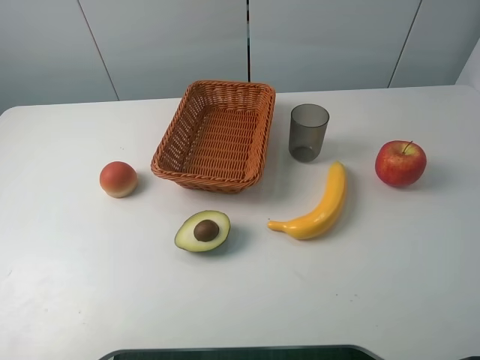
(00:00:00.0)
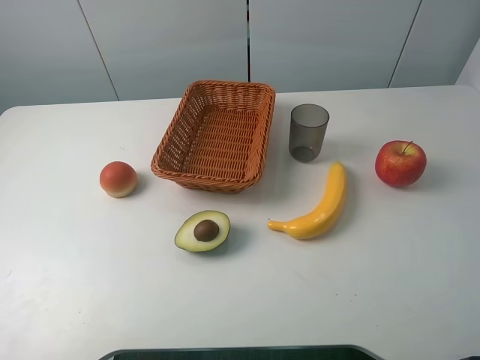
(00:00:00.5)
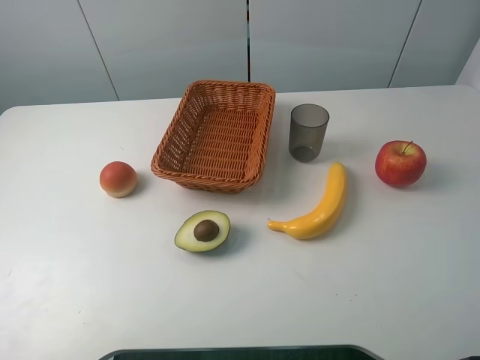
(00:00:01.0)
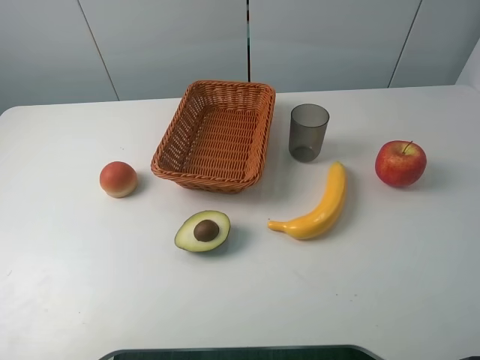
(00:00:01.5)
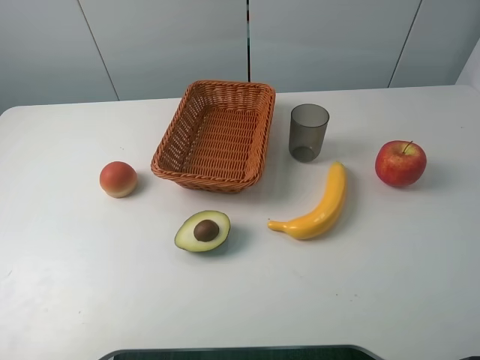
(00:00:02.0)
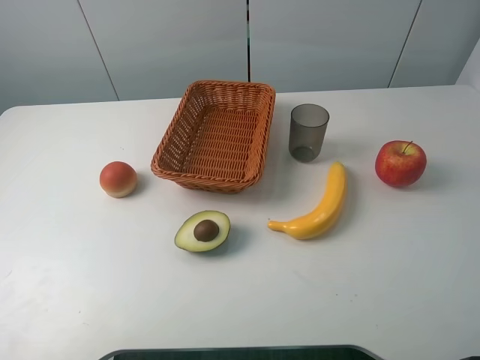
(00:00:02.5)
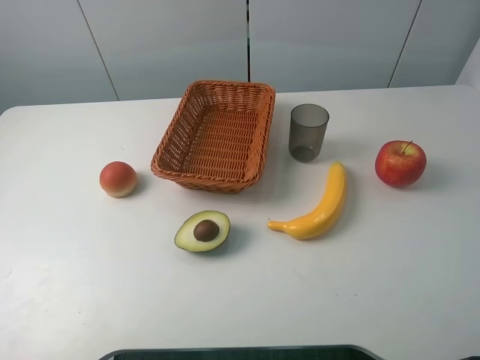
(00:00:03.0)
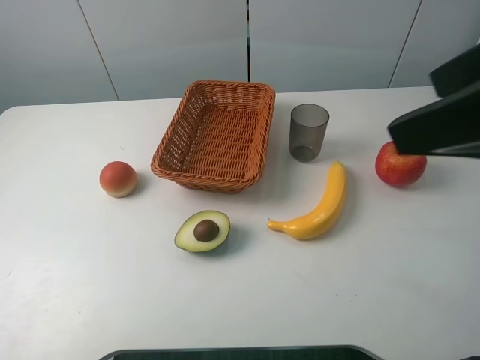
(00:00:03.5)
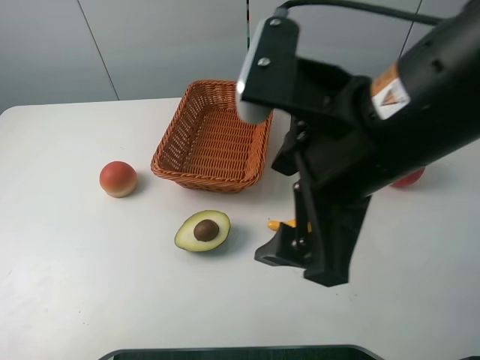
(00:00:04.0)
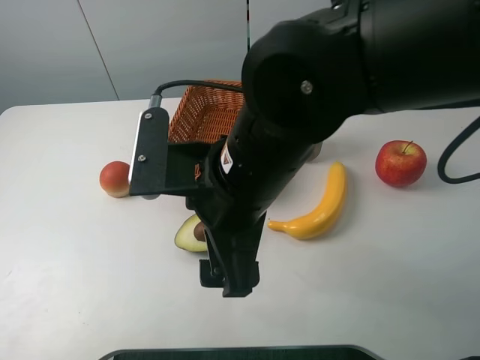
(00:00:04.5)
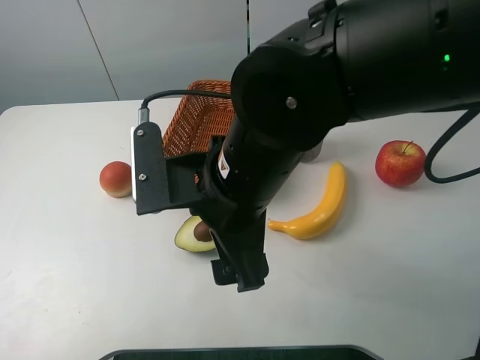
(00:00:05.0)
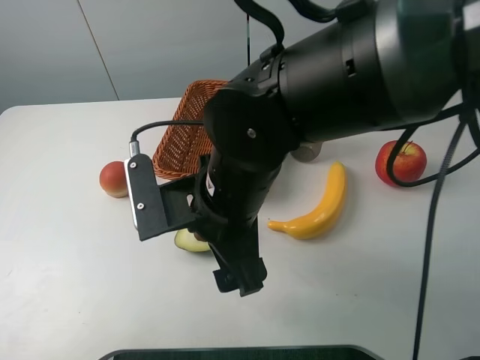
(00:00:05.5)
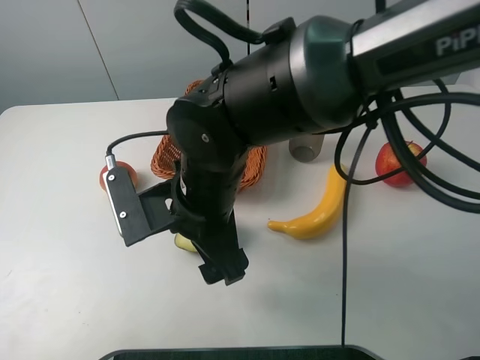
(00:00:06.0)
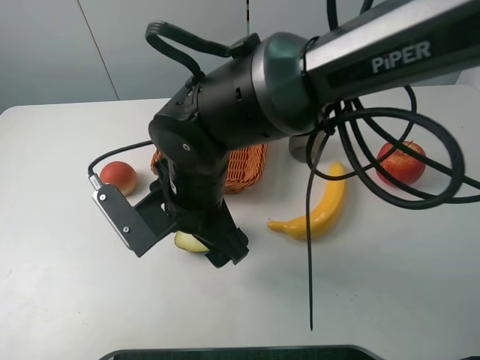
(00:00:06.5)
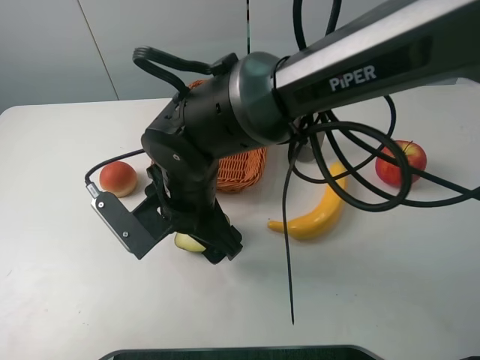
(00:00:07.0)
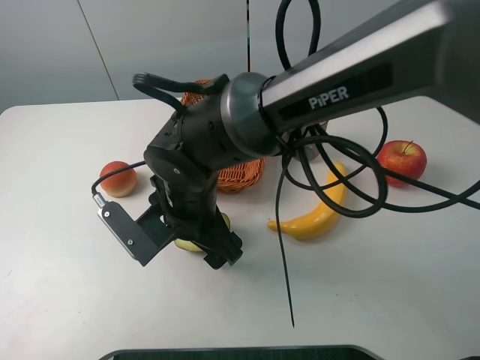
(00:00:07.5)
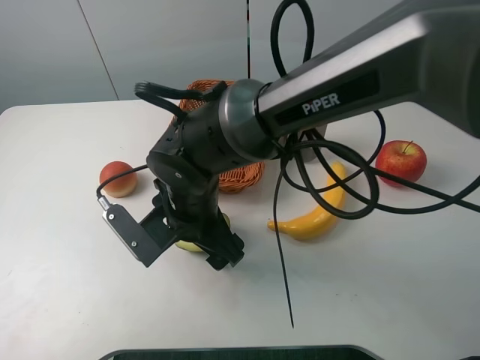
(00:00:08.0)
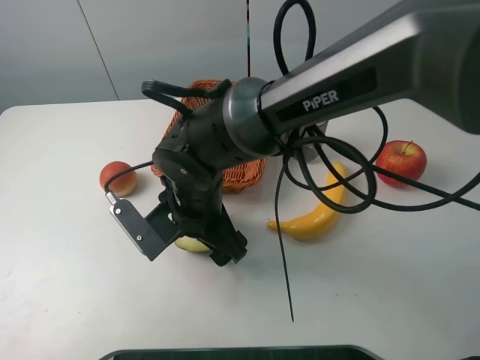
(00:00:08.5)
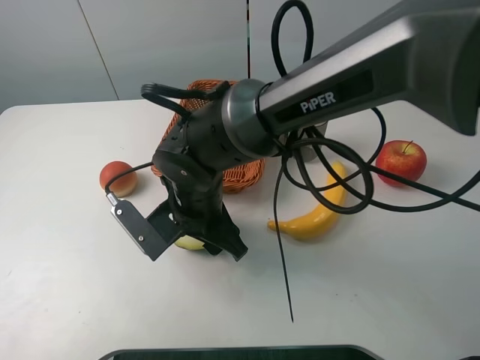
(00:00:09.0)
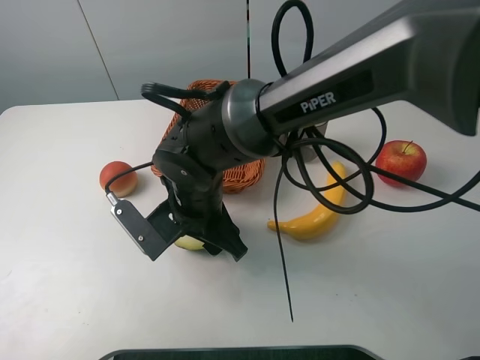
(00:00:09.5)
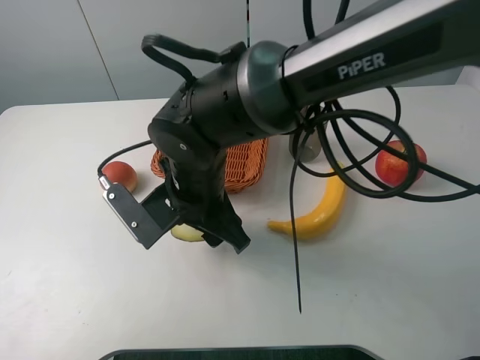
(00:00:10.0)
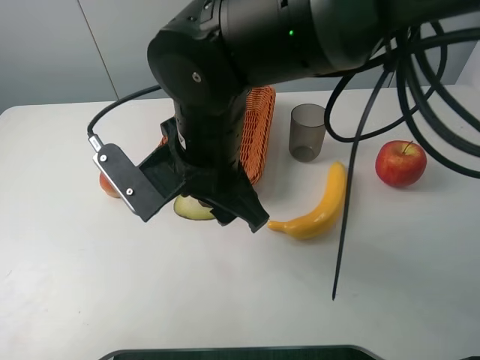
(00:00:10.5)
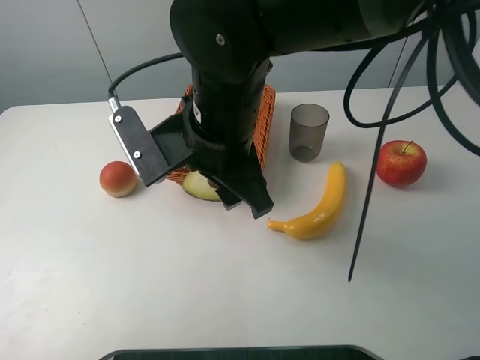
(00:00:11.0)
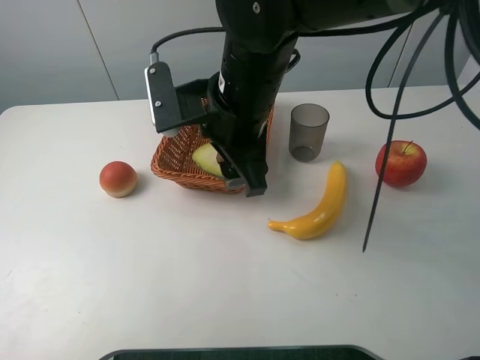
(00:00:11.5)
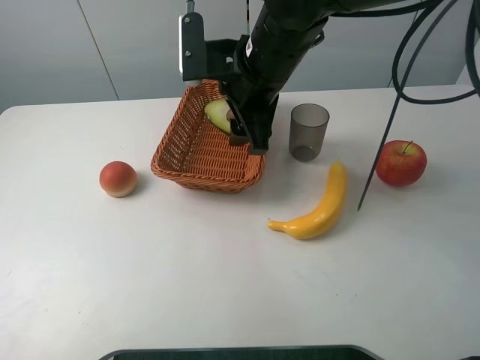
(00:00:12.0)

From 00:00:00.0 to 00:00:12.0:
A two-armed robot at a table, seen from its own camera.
Task of the whole recording: randomly pick up an item from the table and put it in the basket.
Step, from 00:00:00.0 to 00:00:09.5: Grasp the avocado with the right gripper.
From 00:00:00.0 to 00:00:02.0: Both grippers stay about where they are.
From 00:00:02.0 to 00:00:04.0: The right gripper shifts some 25 cm to the left and forward.
From 00:00:04.0 to 00:00:06.0: The right gripper heads to the left and downward, covering approximately 15 cm.
From 00:00:06.0 to 00:00:08.0: The right gripper shifts by approximately 5 cm.
From 00:00:08.0 to 00:00:10.0: The right gripper closes its fingers.
From 00:00:10.0 to 00:00:12.0: The right gripper heads forward, upward and to the right, covering approximately 15 cm.

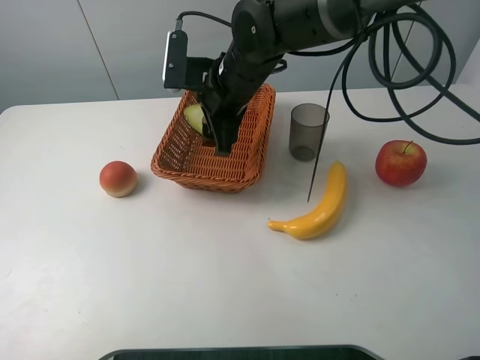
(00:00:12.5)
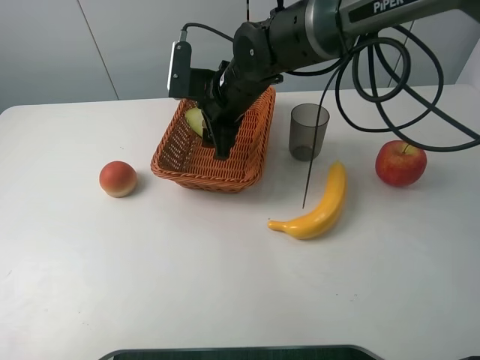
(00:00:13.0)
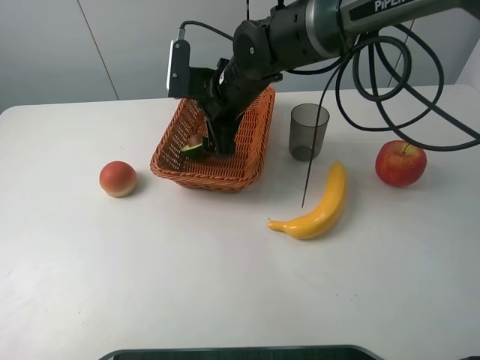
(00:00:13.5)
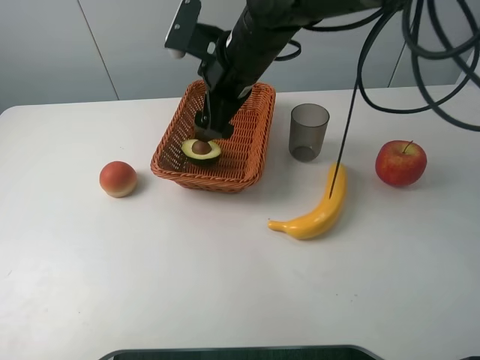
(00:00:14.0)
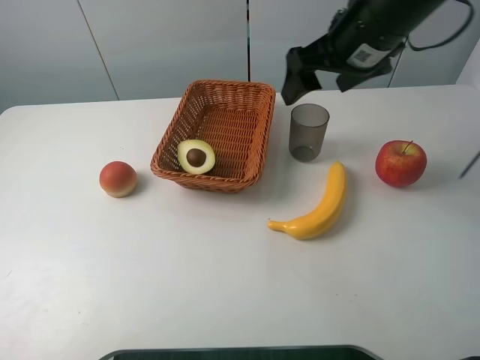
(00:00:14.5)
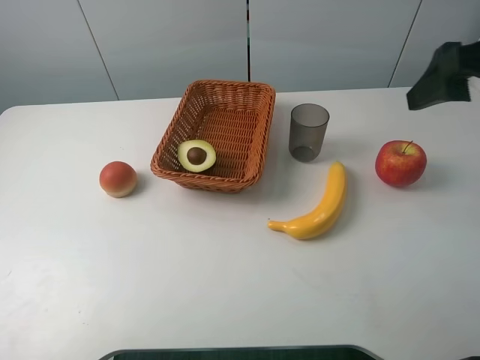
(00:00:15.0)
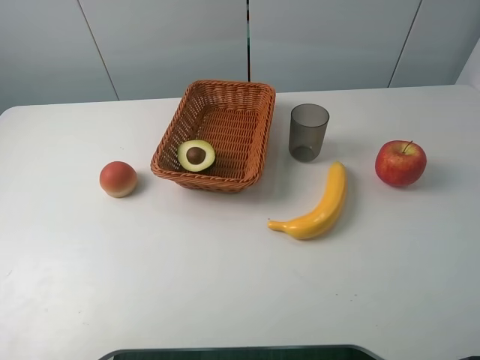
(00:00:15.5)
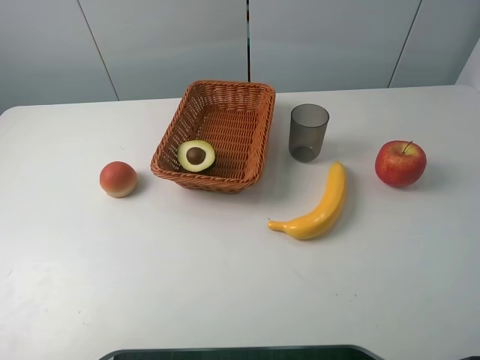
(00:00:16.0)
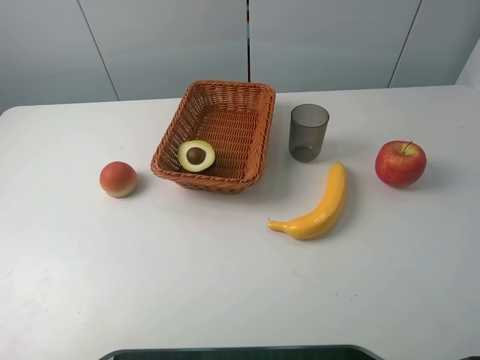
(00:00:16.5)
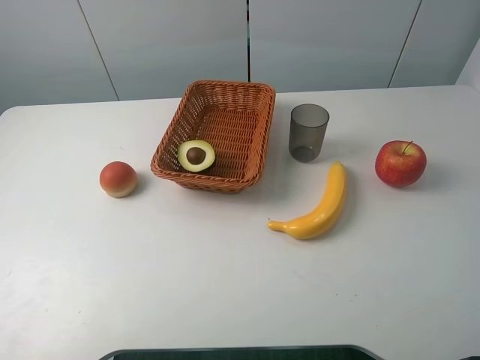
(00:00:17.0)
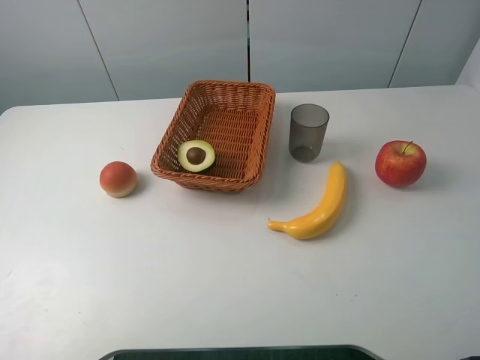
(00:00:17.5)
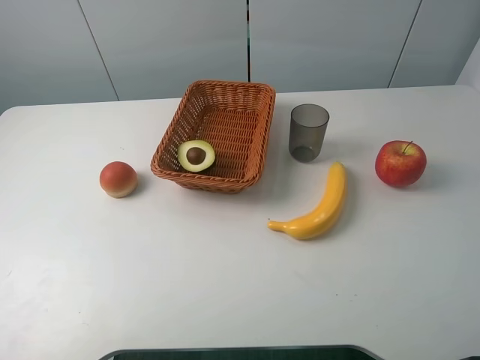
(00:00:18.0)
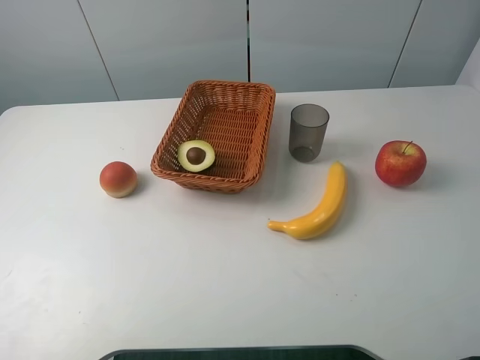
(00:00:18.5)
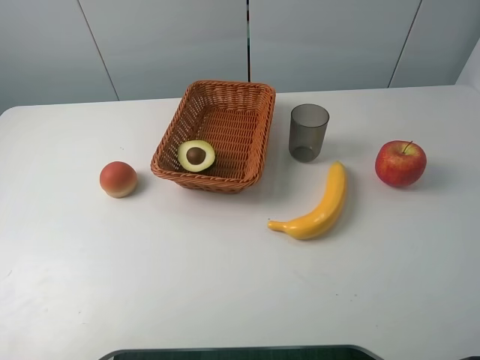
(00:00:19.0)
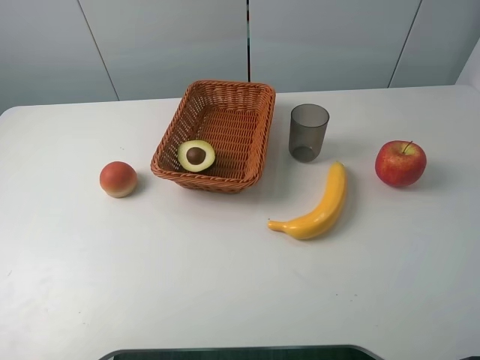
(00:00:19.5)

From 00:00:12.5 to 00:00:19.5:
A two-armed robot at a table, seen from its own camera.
Task of the whole recording: randomly pick up an item from the table and put it in the basket.
From 00:00:12.5 to 00:00:14.5: The right gripper heads to the right and upward, covering about 20 cm, and opens.
From 00:00:14.5 to 00:00:16.0: The right gripper moves backward and to the right, some 35 cm.
From 00:00:17.5 to 00:00:19.5: Both grippers stay put.

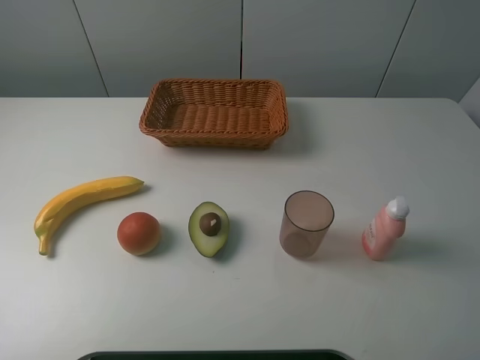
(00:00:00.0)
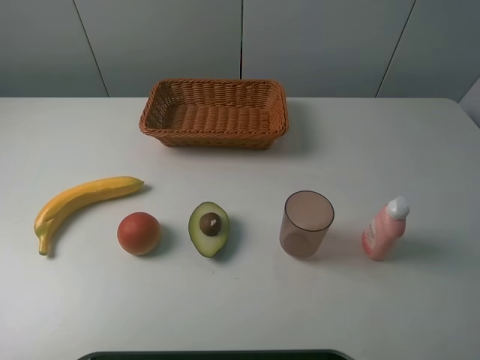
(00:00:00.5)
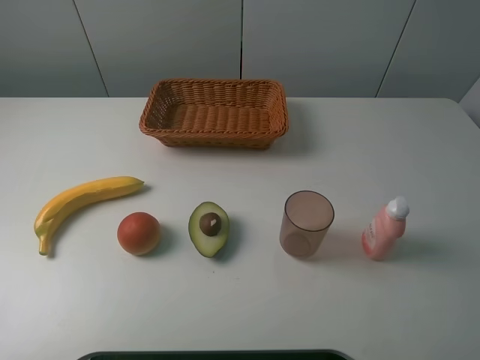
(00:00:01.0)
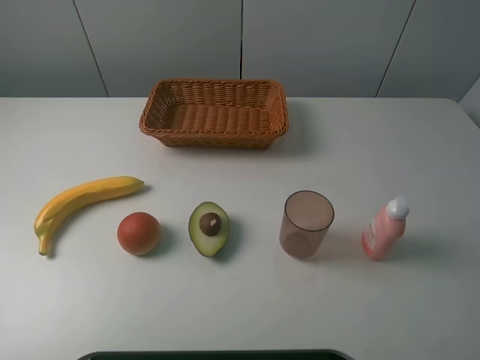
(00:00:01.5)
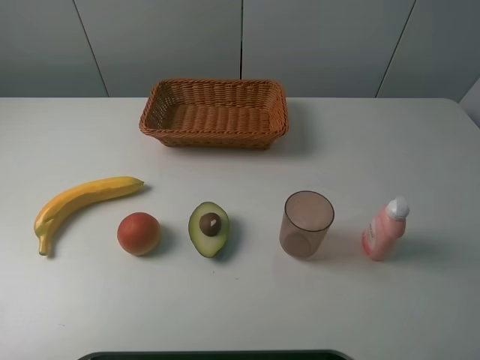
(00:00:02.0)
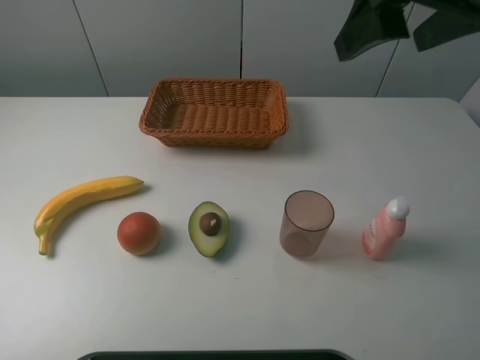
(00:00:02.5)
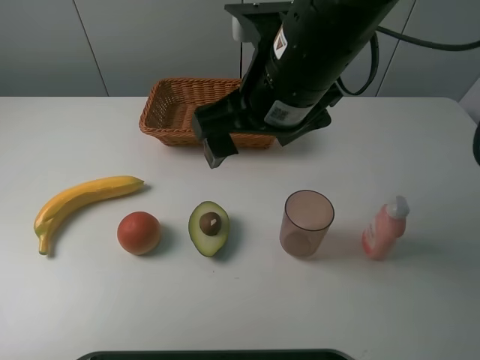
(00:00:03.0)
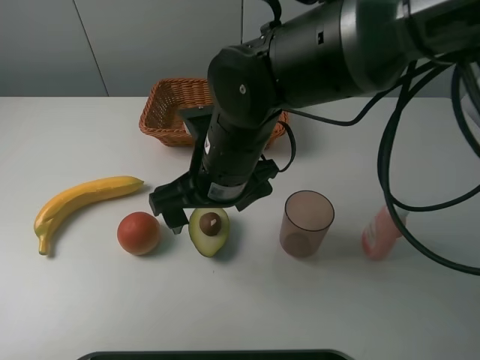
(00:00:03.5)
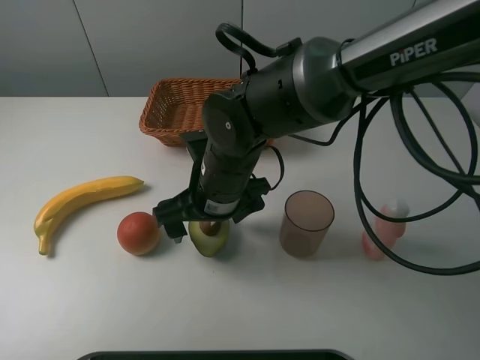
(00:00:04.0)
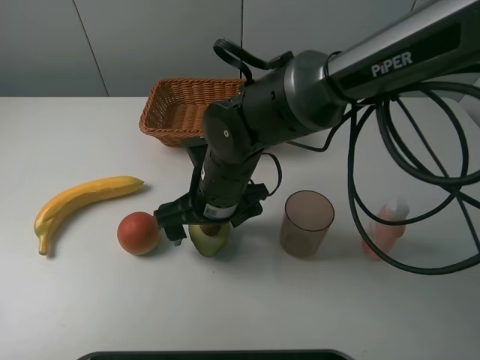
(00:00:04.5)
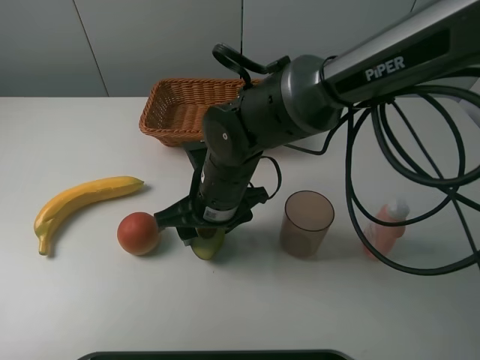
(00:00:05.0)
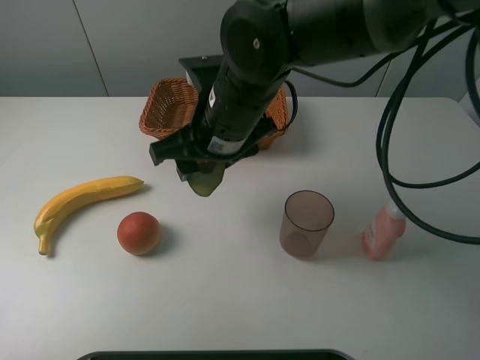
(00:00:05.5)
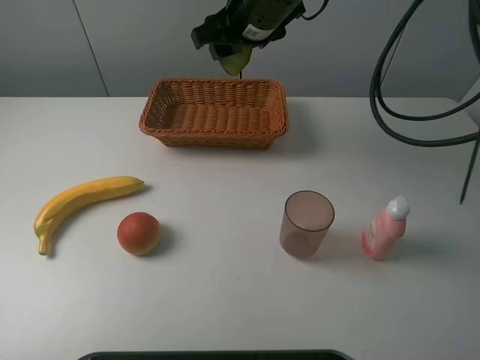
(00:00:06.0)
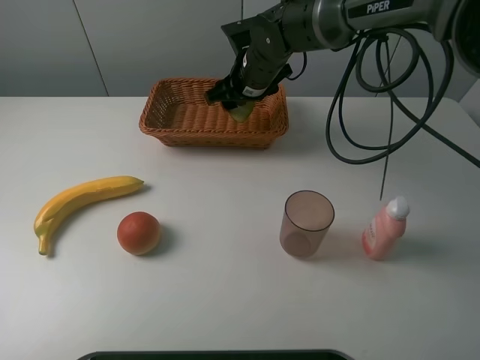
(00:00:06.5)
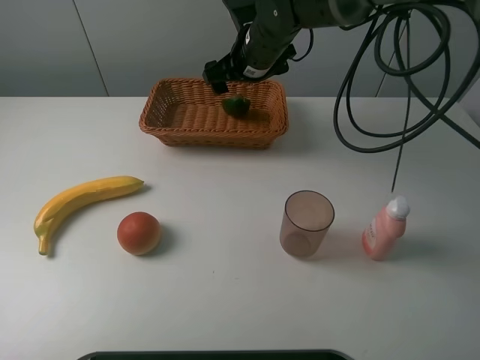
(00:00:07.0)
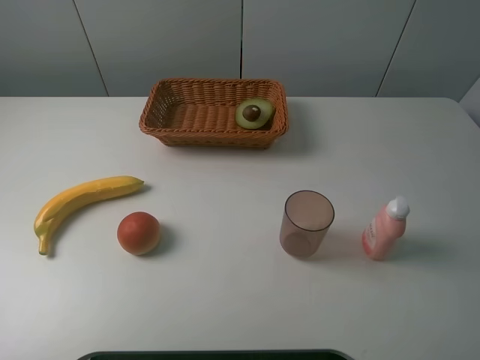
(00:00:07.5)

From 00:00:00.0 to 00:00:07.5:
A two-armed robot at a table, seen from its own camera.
Task of the whole recording: randomly pick up an item from the table and put it in the basket.
Step, from 00:00:00.0 to 00:00:04.5: Grasp the avocado with the right gripper.
Step, from 00:00:05.0 to 00:00:07.0: Place the avocado into the basket with the right gripper.
From 00:00:02.0 to 00:00:04.0: The right gripper shifts approximately 40 cm to the left and downward.
From 00:00:04.0 to 00:00:05.5: The right gripper heads upward, covering some 10 cm, and closes.
From 00:00:05.5 to 00:00:07.5: The right gripper swings up and down, about 25 cm each way, with 2 reversals, and opens up.
